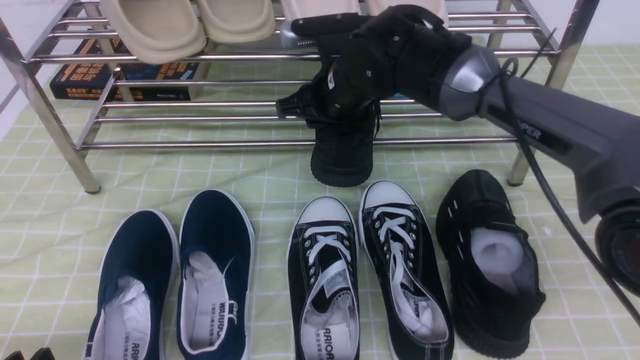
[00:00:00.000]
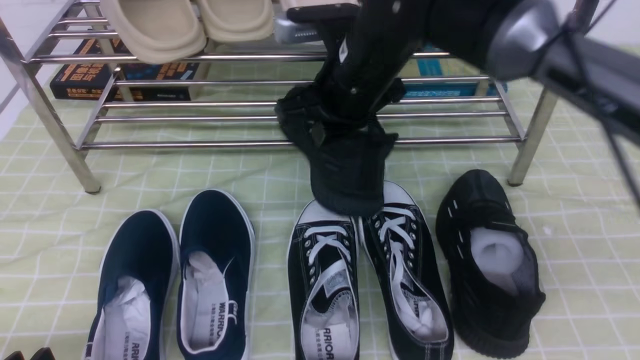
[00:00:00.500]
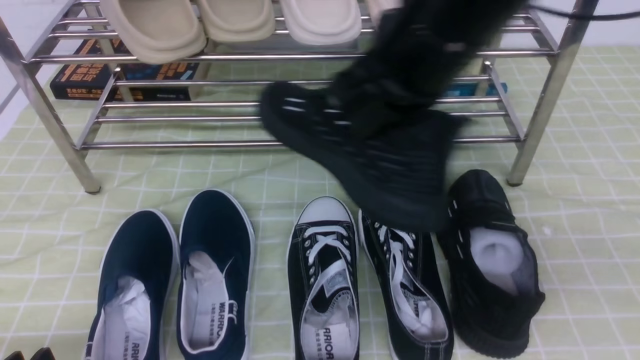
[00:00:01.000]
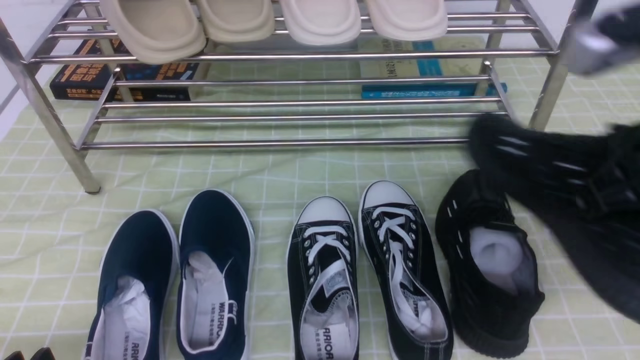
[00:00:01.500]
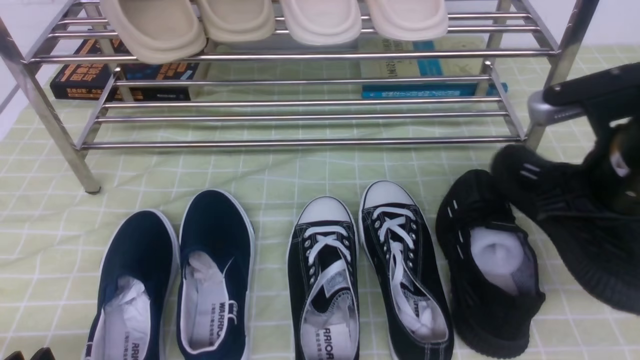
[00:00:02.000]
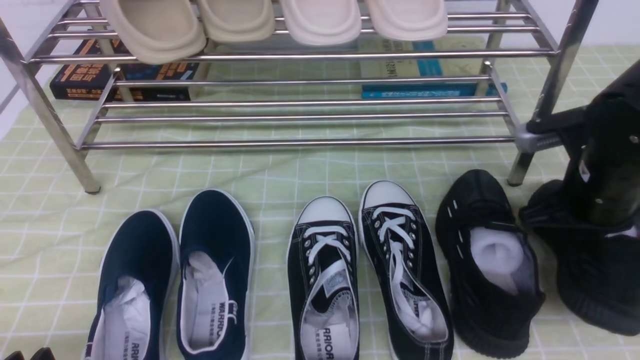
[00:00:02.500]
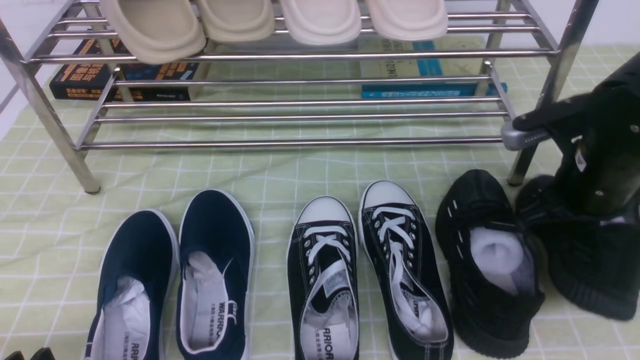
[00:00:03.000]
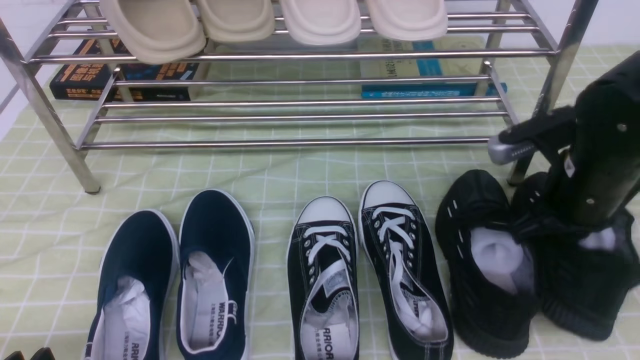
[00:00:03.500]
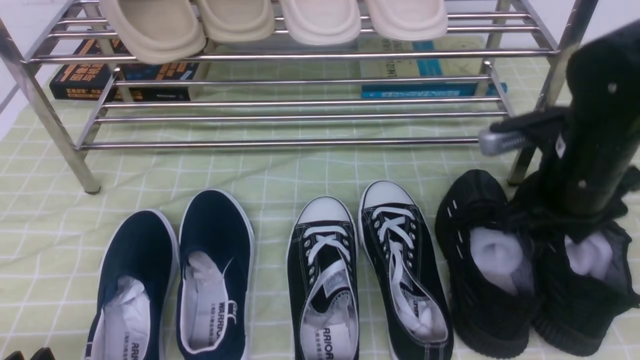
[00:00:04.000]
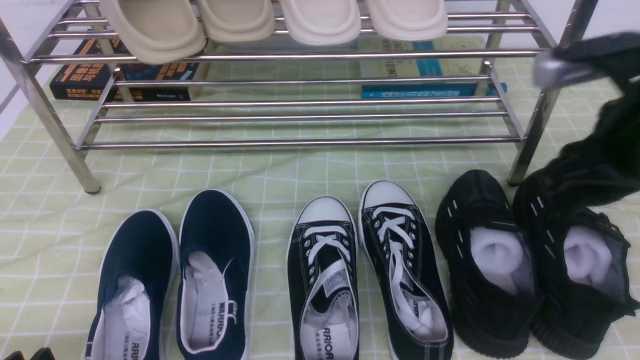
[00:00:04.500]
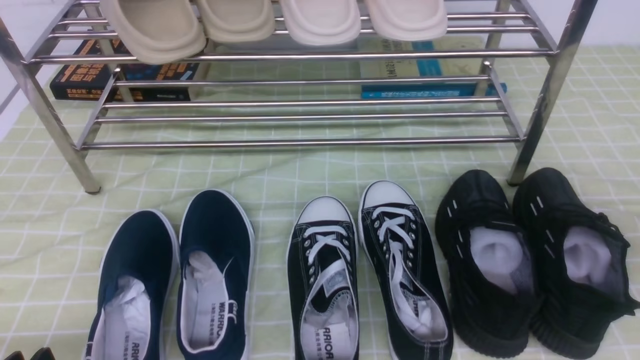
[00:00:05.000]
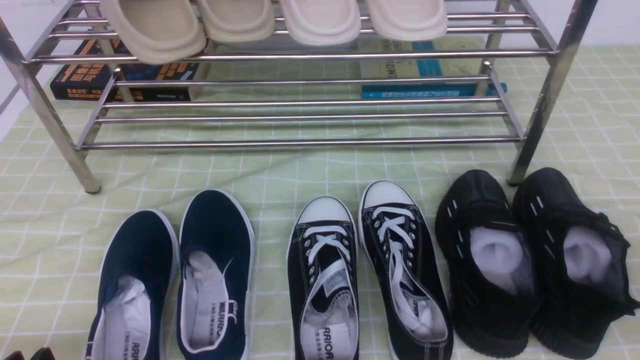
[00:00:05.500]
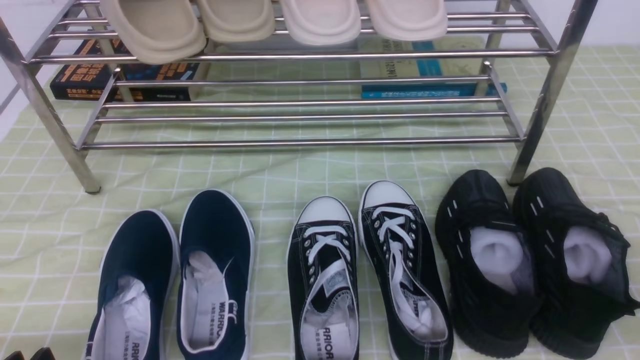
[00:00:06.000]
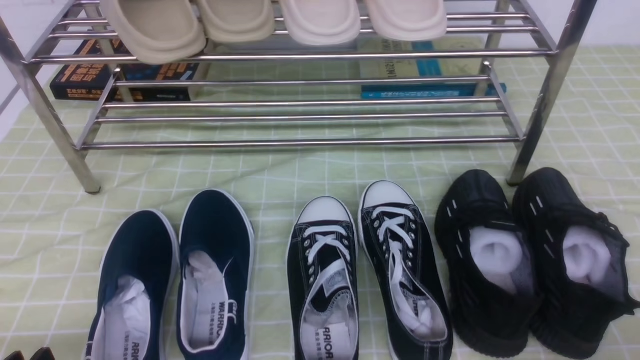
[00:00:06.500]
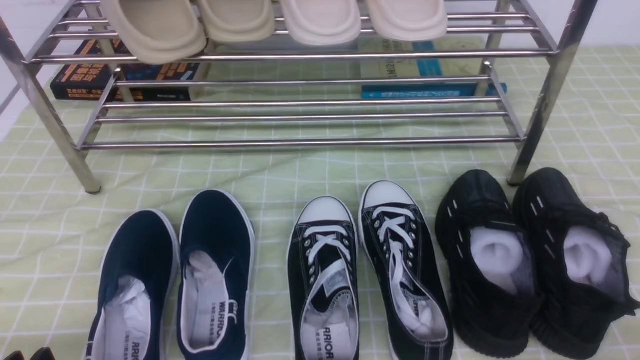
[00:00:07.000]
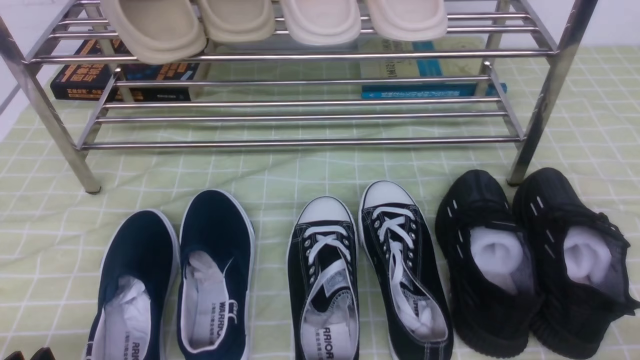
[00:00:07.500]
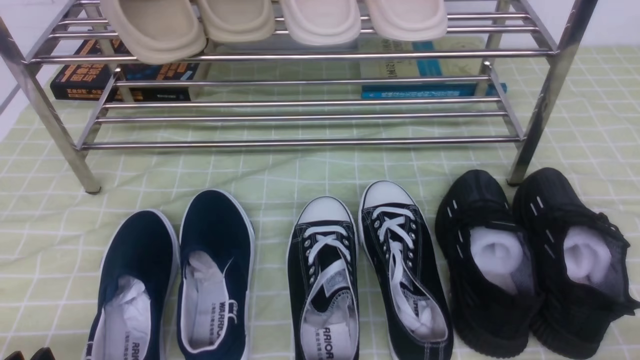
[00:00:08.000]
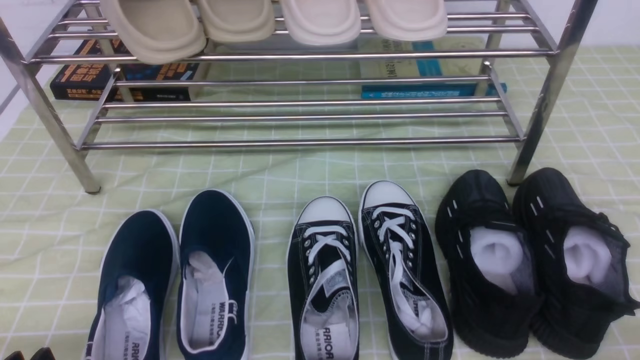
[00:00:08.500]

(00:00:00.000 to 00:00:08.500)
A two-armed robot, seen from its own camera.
Step, 00:00:00.500 - 00:00:04.500: use the right arm to take out the clamped shoe from the shoe rack and put it down.
00:00:00.000 - 00:00:02.000: The right gripper moves to the right and backward, approximately 25 cm, and closes up.
00:00:02.000 - 00:00:04.000: The right gripper ends up roughly 5 cm from where it was, and opens.
00:00:04.000 - 00:00:06.500: The right gripper heads backward and to the right, covering approximately 25 cm, and closes up.

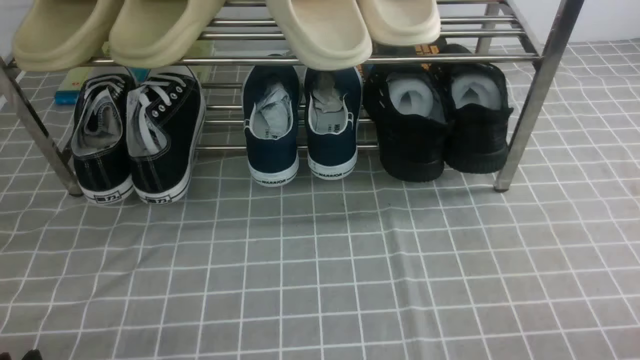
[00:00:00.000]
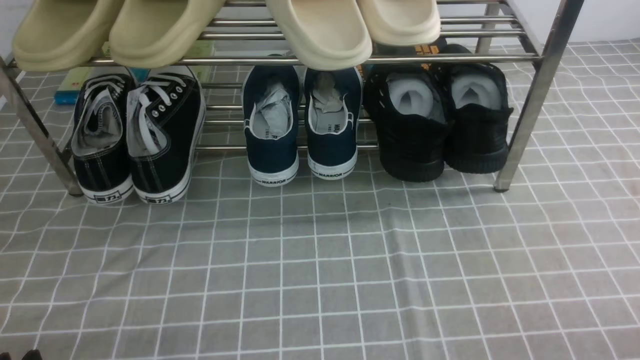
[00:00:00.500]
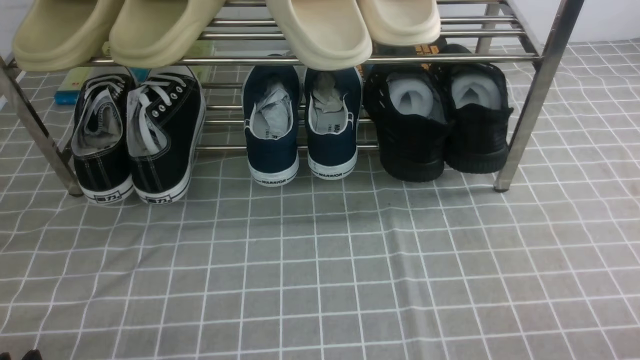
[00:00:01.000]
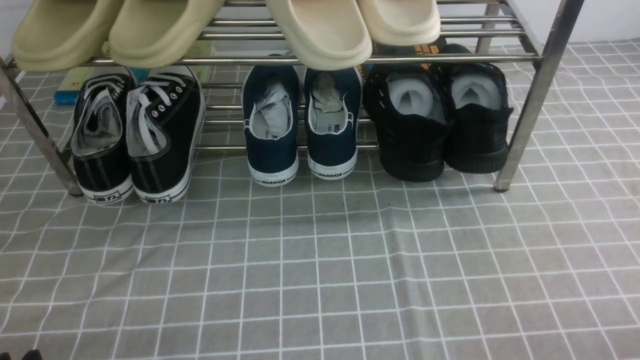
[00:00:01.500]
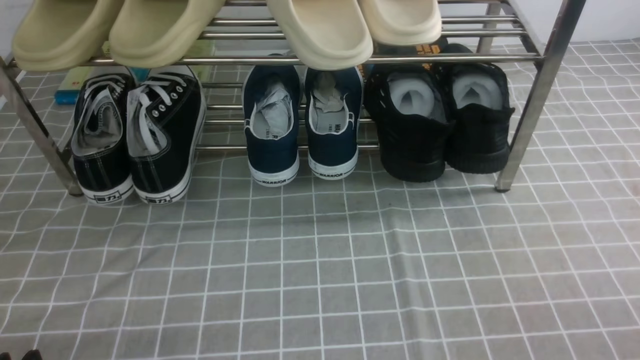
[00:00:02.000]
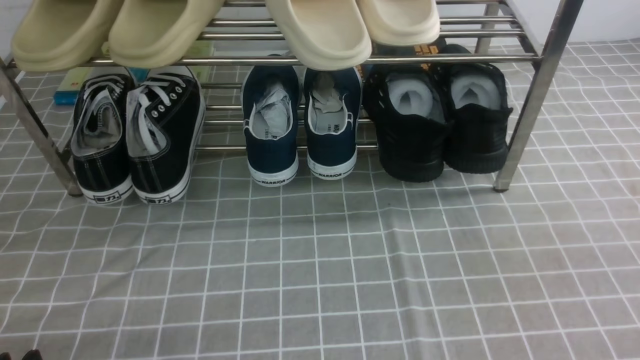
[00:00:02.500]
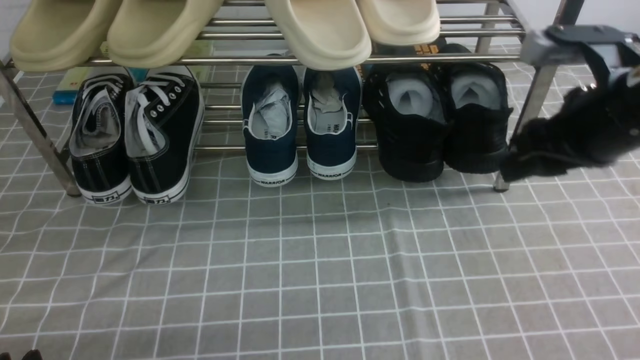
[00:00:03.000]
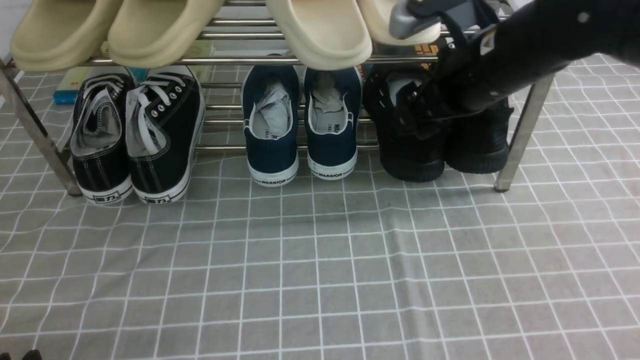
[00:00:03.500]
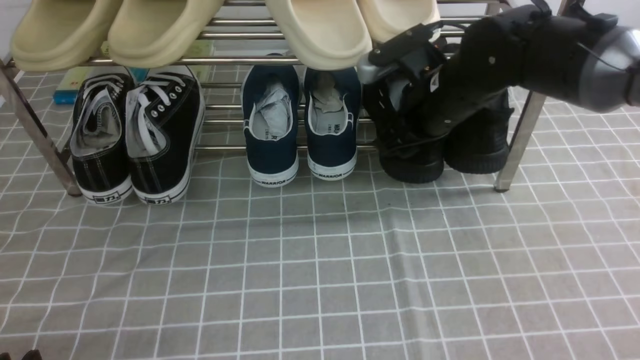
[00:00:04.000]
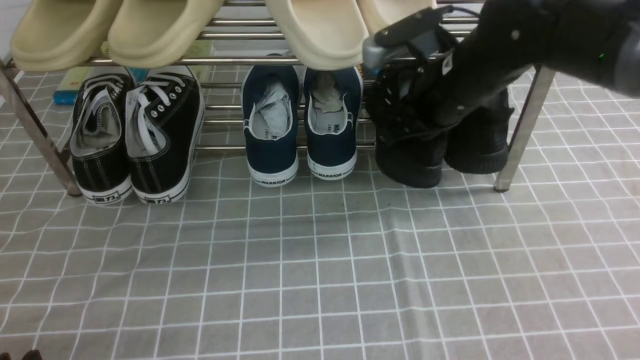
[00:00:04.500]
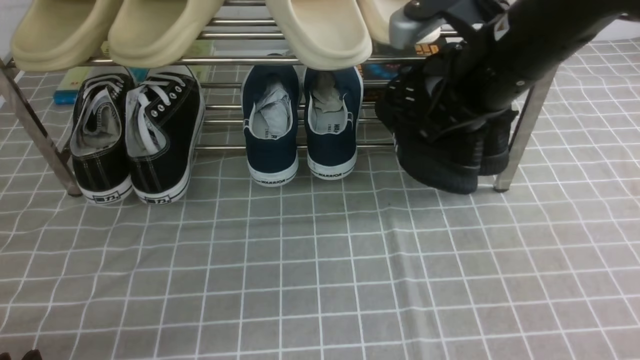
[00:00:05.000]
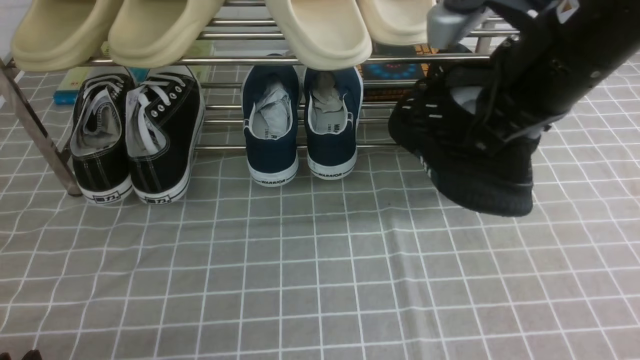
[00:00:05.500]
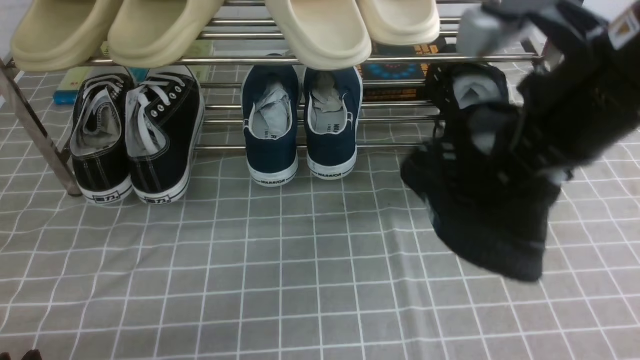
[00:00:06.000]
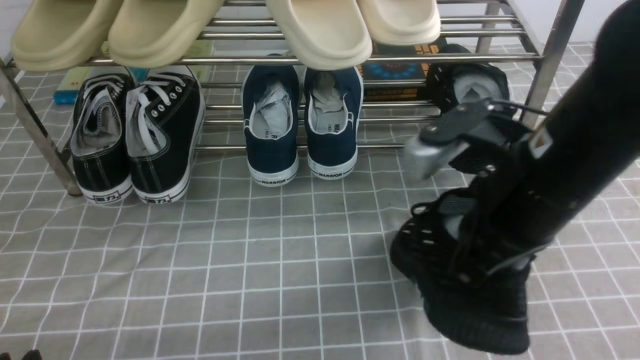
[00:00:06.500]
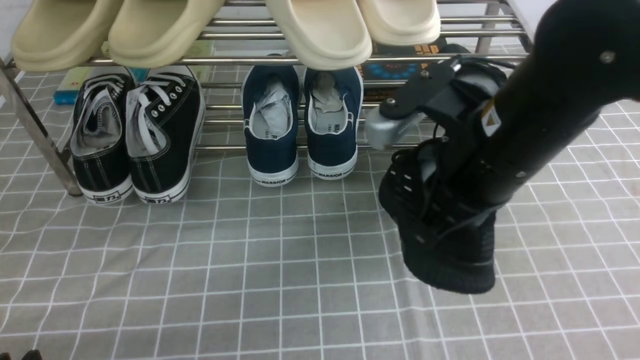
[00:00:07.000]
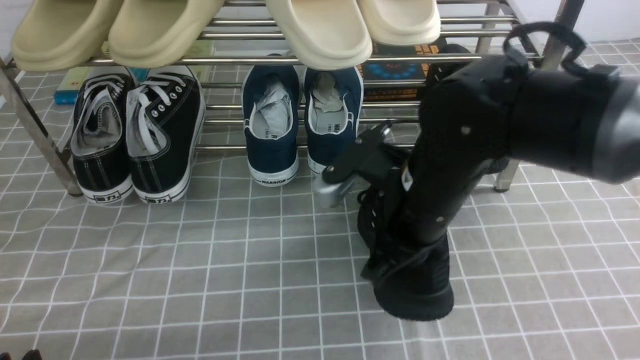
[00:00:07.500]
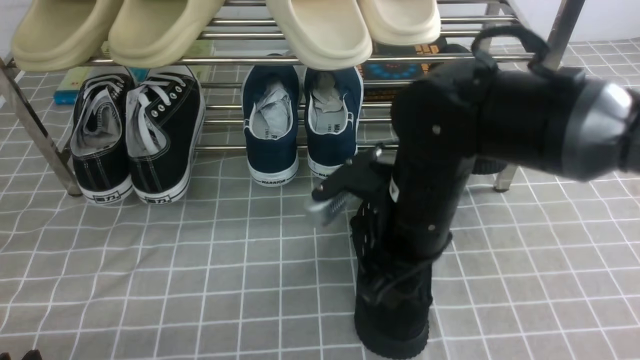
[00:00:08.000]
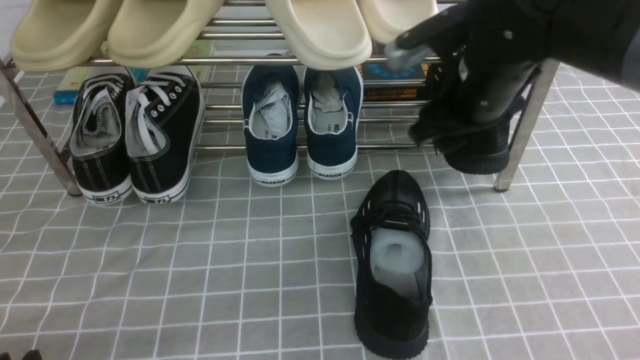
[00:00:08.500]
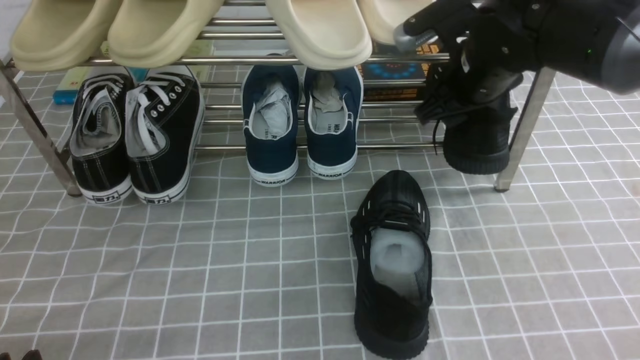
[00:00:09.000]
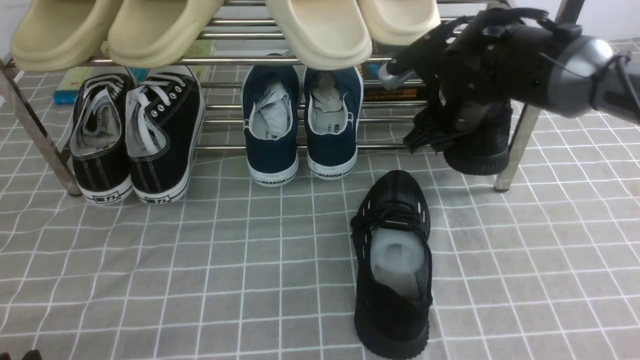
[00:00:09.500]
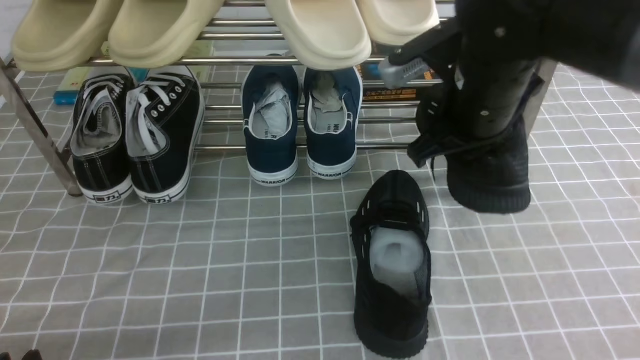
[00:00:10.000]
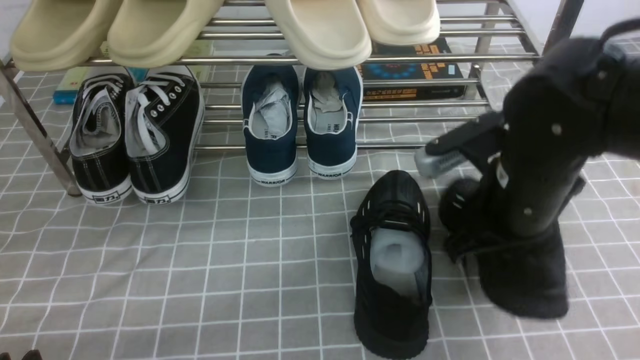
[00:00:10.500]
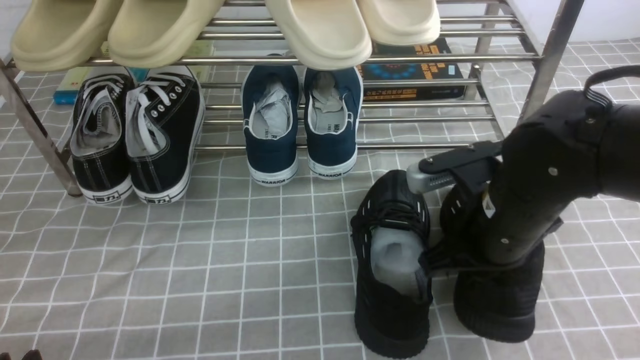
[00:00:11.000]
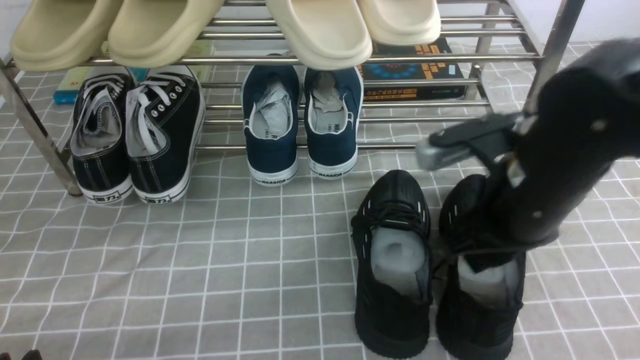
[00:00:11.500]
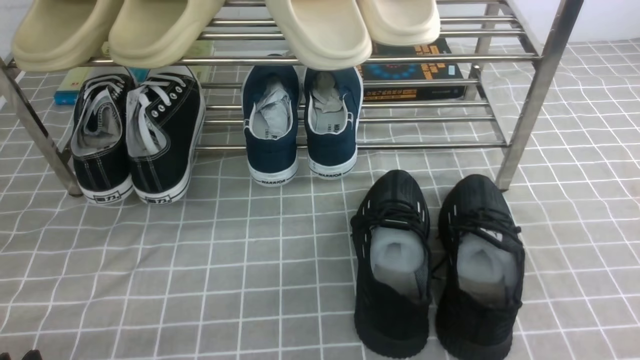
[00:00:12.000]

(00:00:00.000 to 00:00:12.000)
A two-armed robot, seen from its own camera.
Step, 00:00:00.000 - 00:00:04.000: use the right arm to clamp a shoe on the right side of the shoe rack.
Step, 00:00:05.000 - 00:00:08.000: use the right arm to take out the clamped shoe from the shoe rack and put it down.
Step, 00:00:08.500 - 00:00:09.500: use the right arm to clamp a shoe on the right side of the shoe rack.
Step, 00:00:10.000 - 00:00:11.000: use the right arm to take out the clamped shoe from the shoe rack and put it down.
00:00:00.000 - 00:00:02.000: The right gripper shifts roughly 5 cm upward.
00:00:02.000 - 00:00:04.000: The right gripper travels forward and to the left by about 40 cm, and opens, then closes once more.
00:00:04.000 - 00:00:06.000: The right gripper moves backward and upward, some 20 cm, and closes its fingers.
00:00:06.000 - 00:00:08.000: The right gripper heads downward and to the left, covering approximately 15 cm, and opens.
00:00:08.000 - 00:00:10.000: The right gripper is displaced to the right and forward by roughly 10 cm, and closes.
00:00:10.000 - 00:00:12.000: The right gripper goes some 25 cm backward and to the right.
